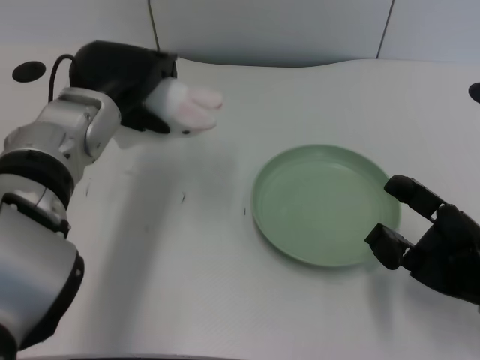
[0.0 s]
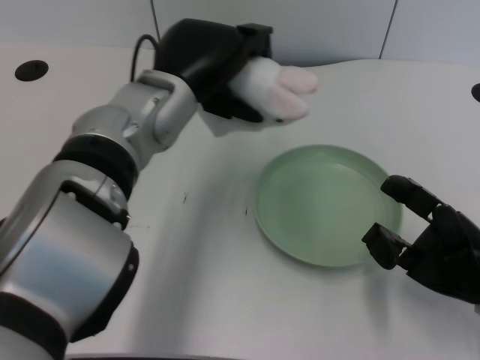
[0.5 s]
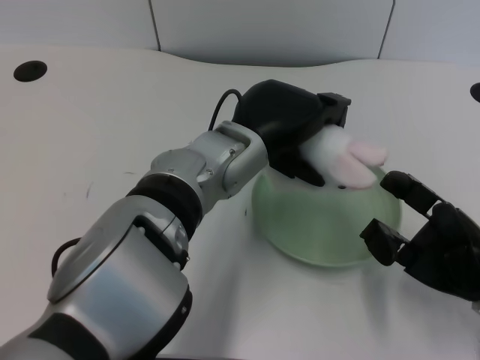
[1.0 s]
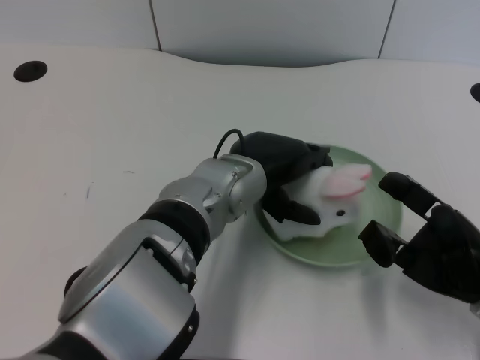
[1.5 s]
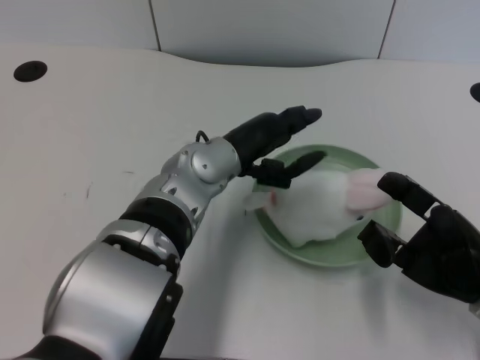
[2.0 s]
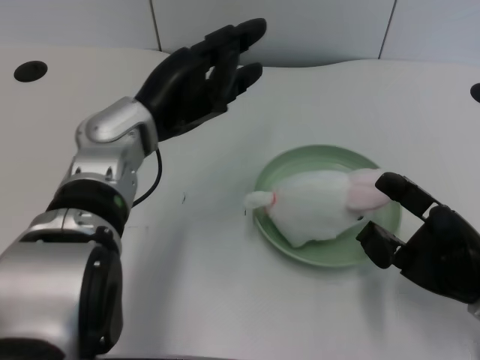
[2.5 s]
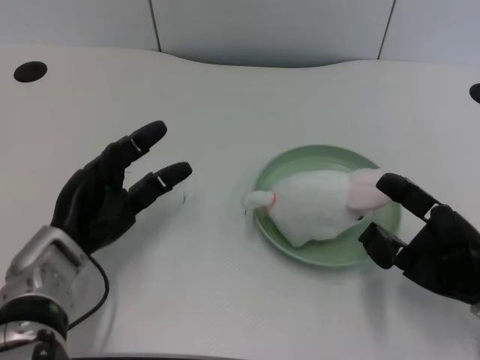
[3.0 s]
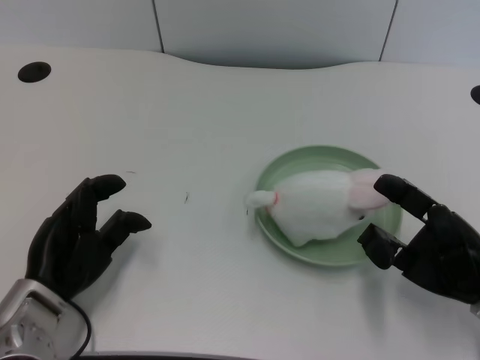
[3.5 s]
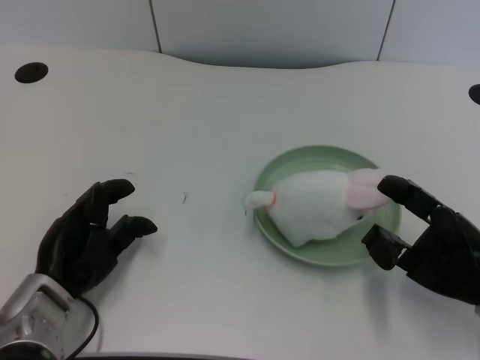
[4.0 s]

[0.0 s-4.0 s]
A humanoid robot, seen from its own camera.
Task of the whole recording: pick up the rabbit doll from the table and place it on the plate.
Step, 0.0 to 1.5 s: Place the rabbit doll into the plate with the left gripper.
0.0 to 2.0 s: The left hand goes some 10 cm to the right.
2.0 to 4.0 s: The left hand heads to the left, downward and backward, covering some 25 cm.

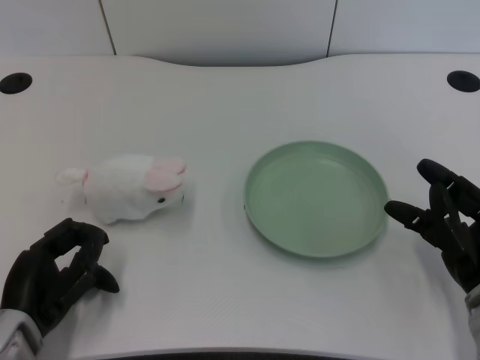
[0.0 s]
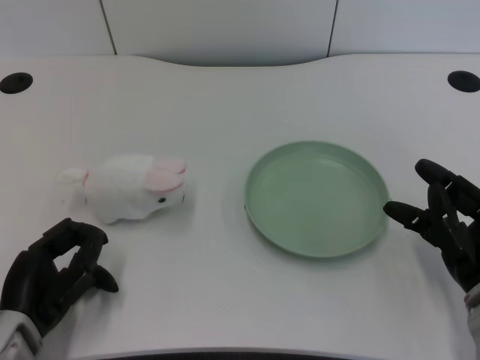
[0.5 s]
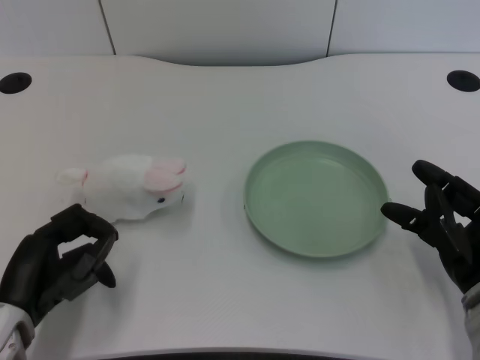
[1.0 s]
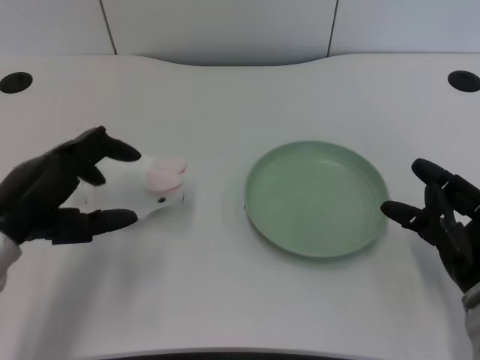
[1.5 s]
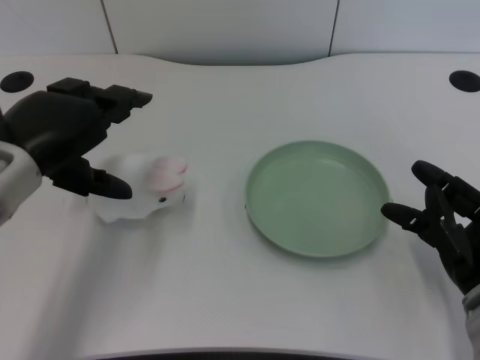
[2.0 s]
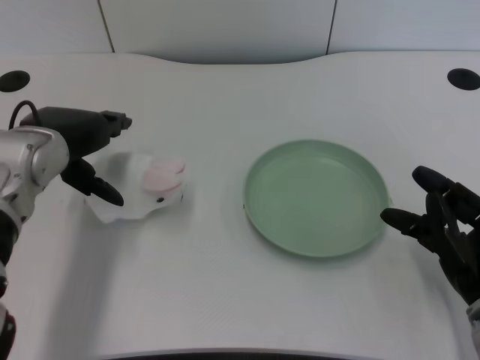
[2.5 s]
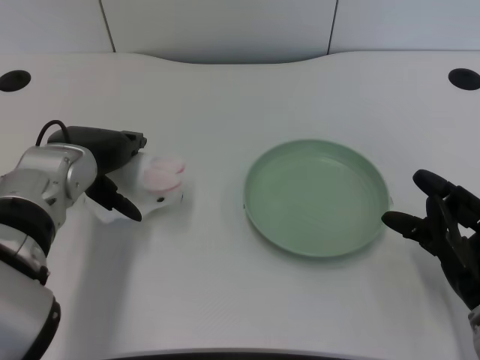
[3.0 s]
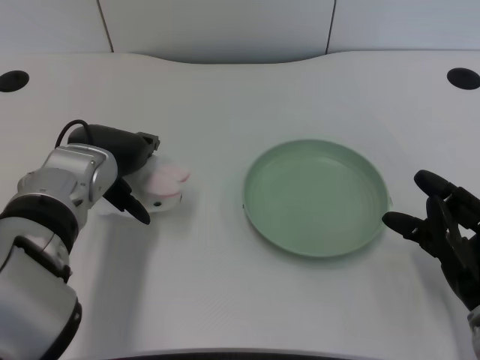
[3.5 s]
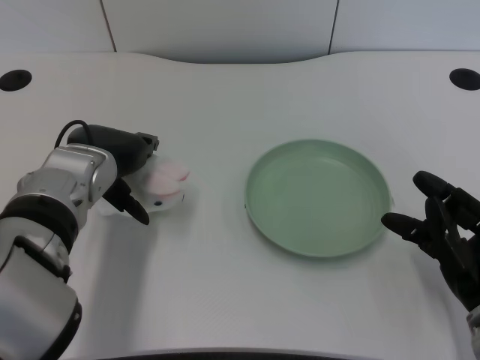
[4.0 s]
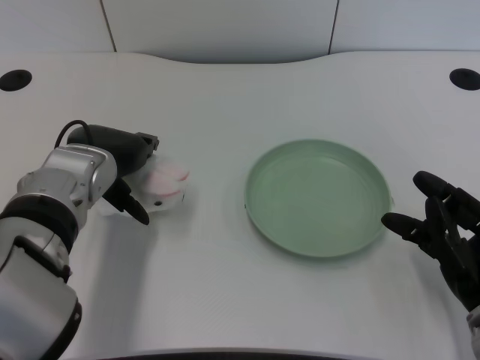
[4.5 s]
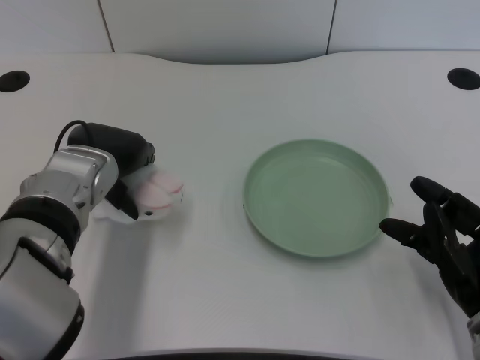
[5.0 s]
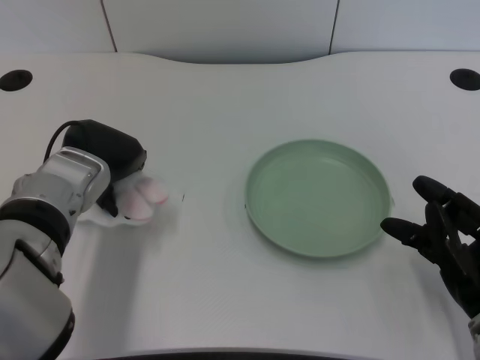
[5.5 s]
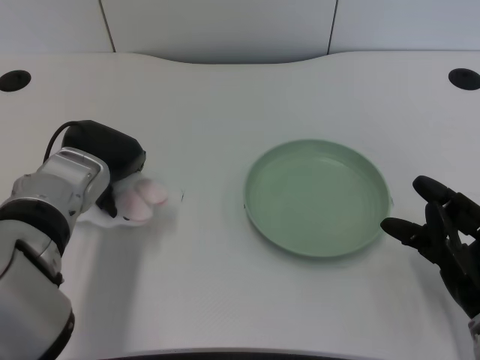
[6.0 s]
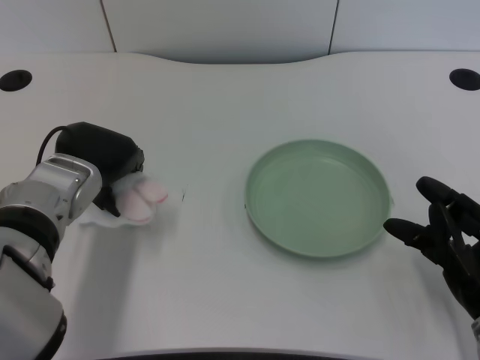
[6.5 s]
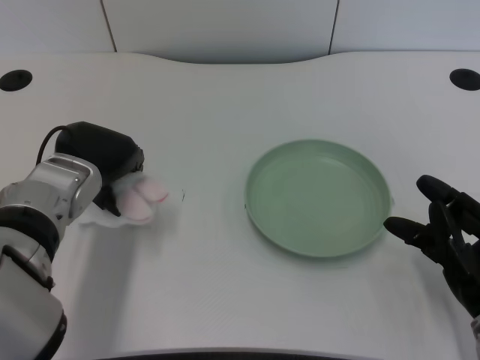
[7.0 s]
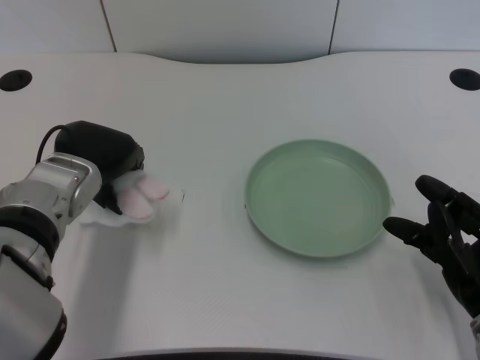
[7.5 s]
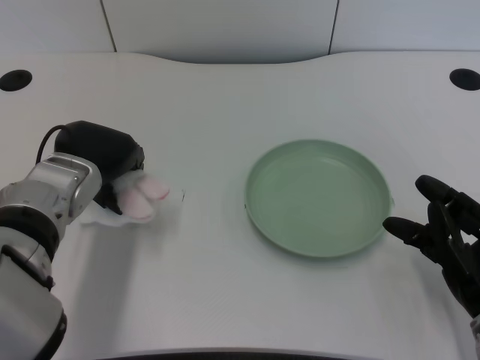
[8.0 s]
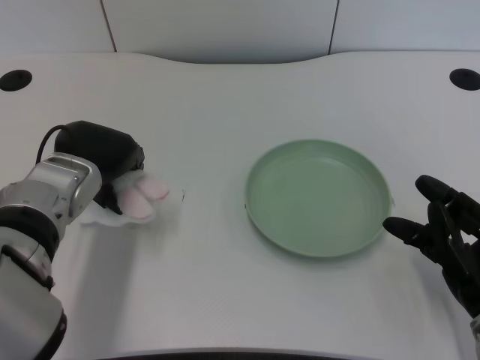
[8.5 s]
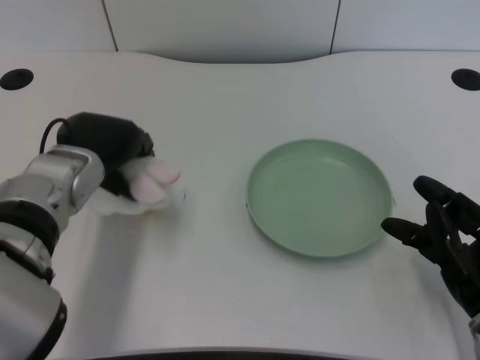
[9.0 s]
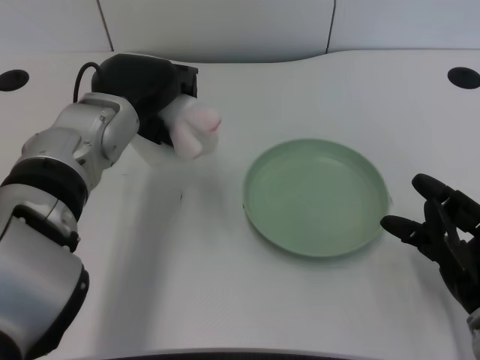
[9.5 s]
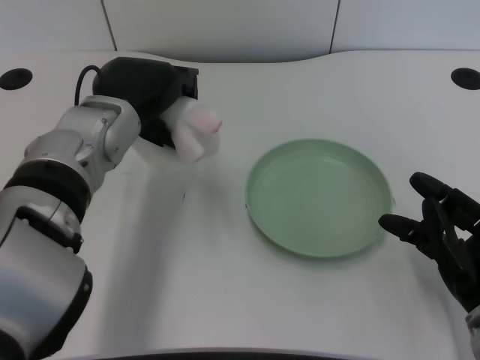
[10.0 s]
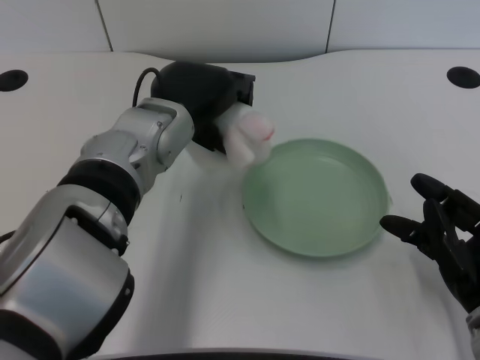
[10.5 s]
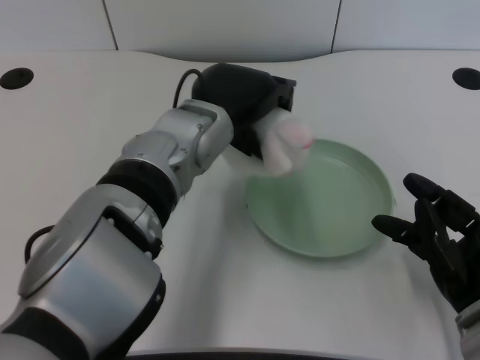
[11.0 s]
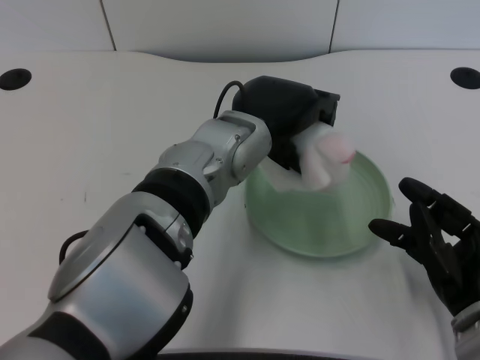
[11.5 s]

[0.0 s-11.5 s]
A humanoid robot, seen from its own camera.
Task of the whole recording: pick up the rabbit doll from the table and place it on the plate.
Step, 1.0 to 8.5 s: Grasp the rabbit doll with the left gripper.
2.0 to 4.0 s: The left hand is displaced to the right, downward and forward by roughly 10 cm.
4.0 to 7.5 s: There are only small adjustments of the hands.
7.5 to 9.5 s: The left hand travels upward by roughly 5 cm.
9.5 to 11.5 s: The left hand heads to the right, covering some 10 cm.

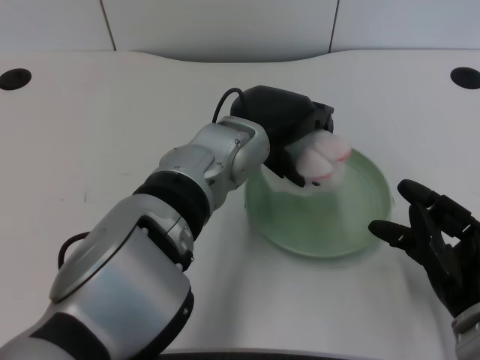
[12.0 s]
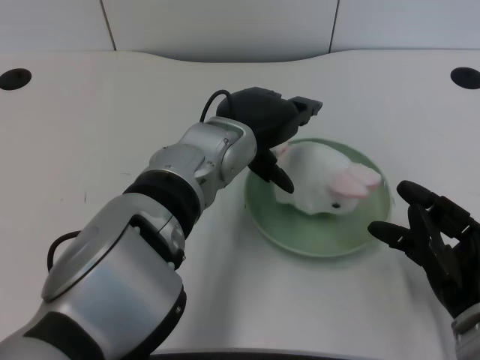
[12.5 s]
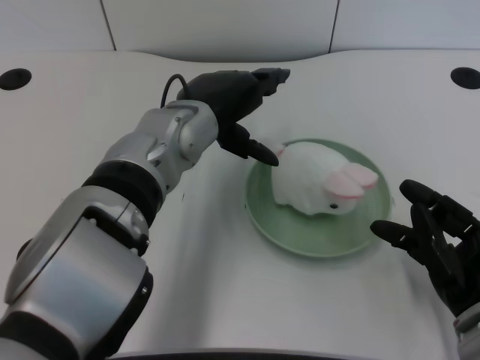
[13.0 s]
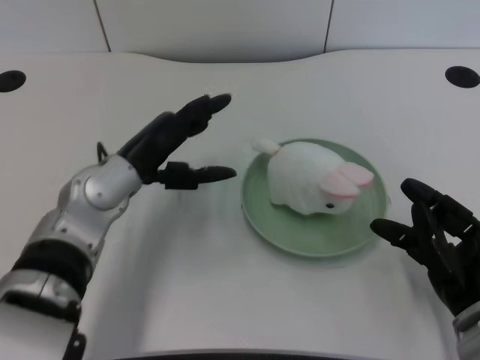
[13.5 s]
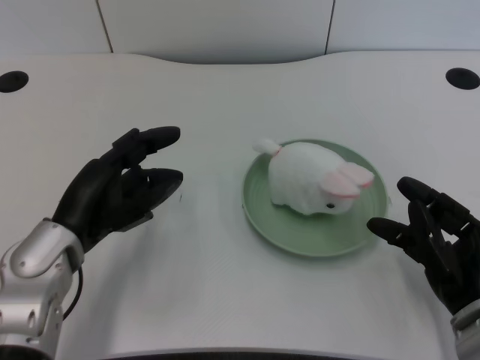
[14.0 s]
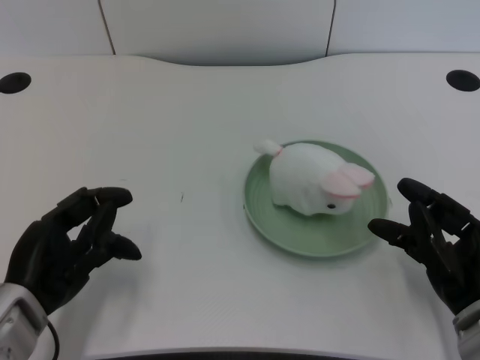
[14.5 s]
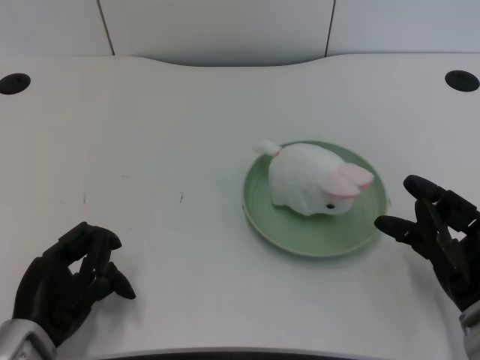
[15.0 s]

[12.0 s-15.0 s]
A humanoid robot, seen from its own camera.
Task of the whole recording: pick up the rabbit doll from the table and place it on the plate.
12.0 to 13.5 s: The left hand is displaced to the left by some 10 cm.
13.5 to 15.0 s: The left hand goes some 20 cm backward, to the left and downward.
